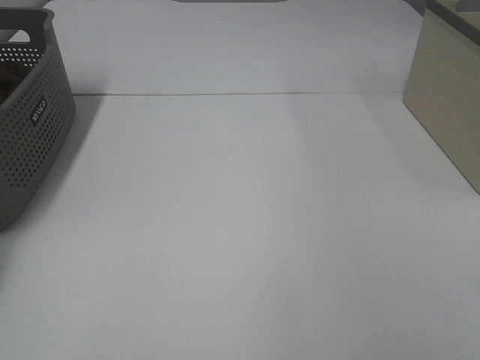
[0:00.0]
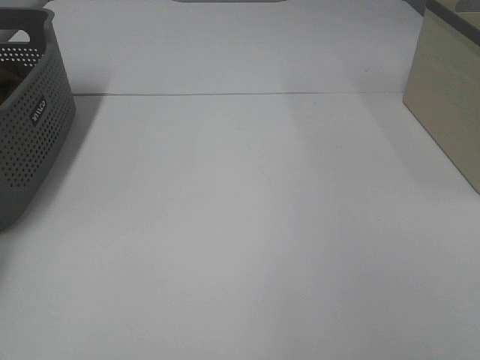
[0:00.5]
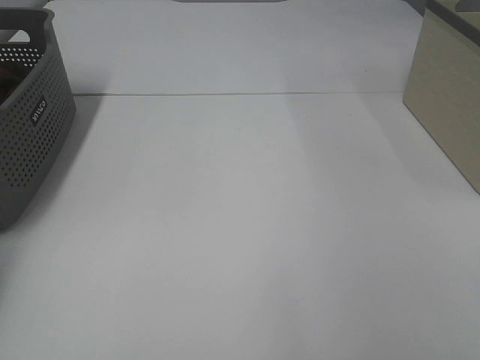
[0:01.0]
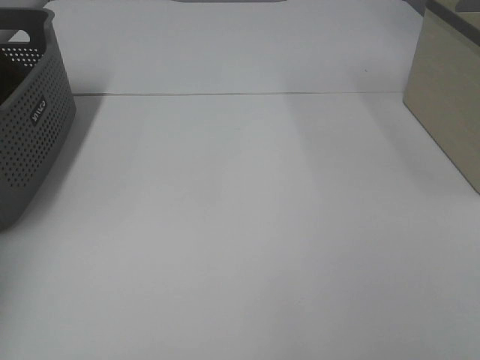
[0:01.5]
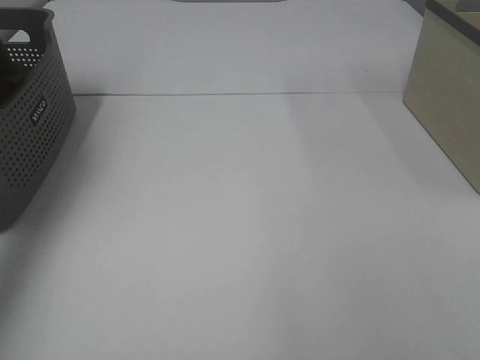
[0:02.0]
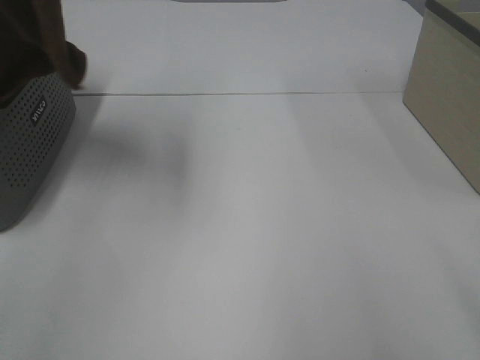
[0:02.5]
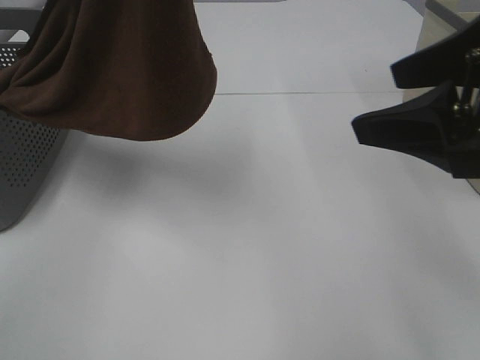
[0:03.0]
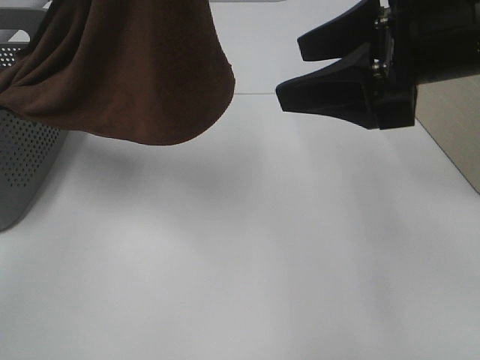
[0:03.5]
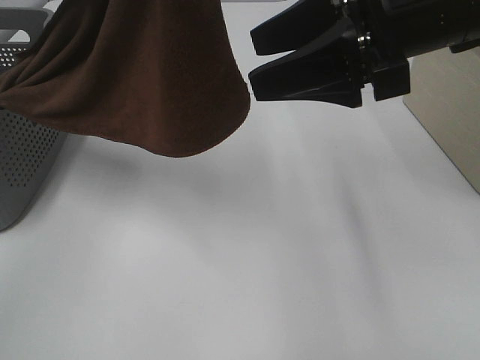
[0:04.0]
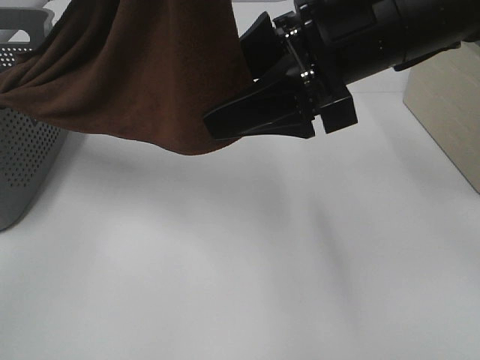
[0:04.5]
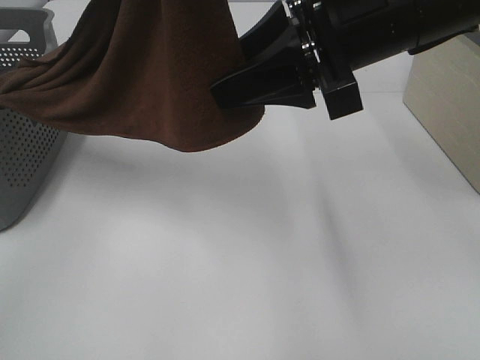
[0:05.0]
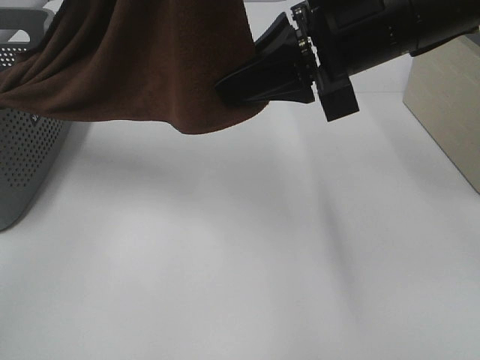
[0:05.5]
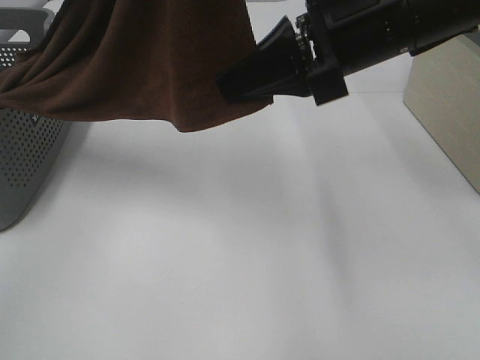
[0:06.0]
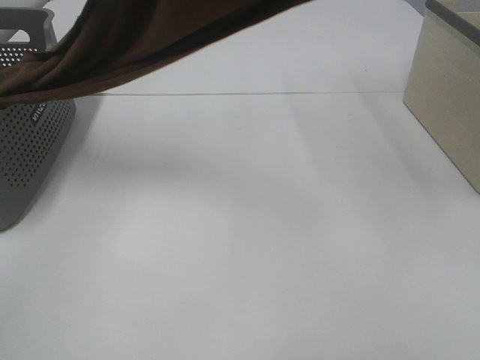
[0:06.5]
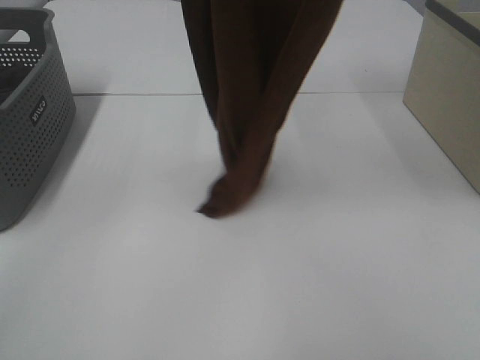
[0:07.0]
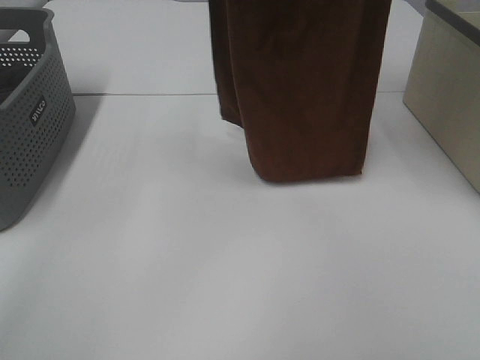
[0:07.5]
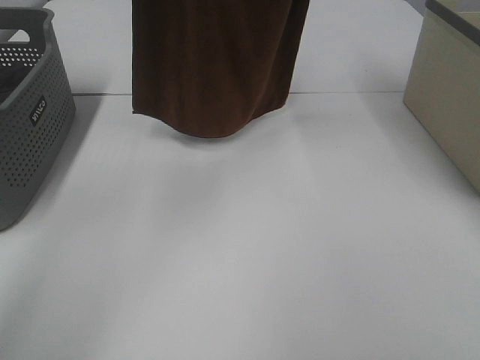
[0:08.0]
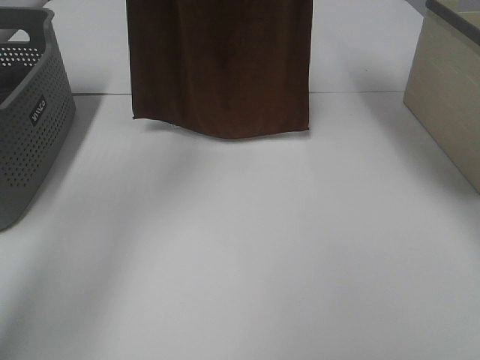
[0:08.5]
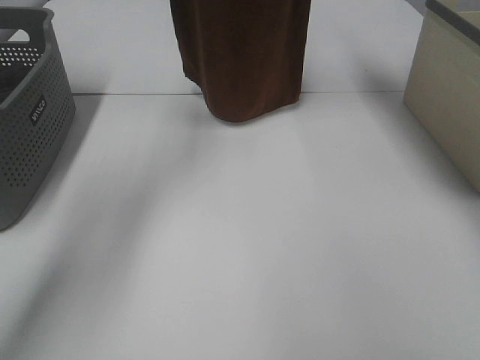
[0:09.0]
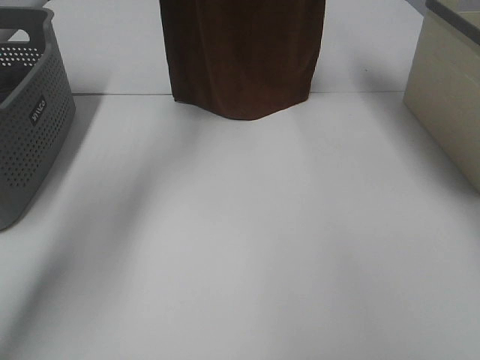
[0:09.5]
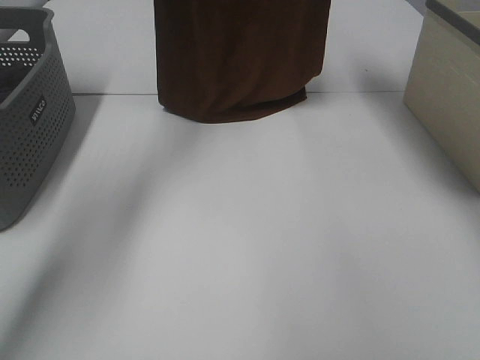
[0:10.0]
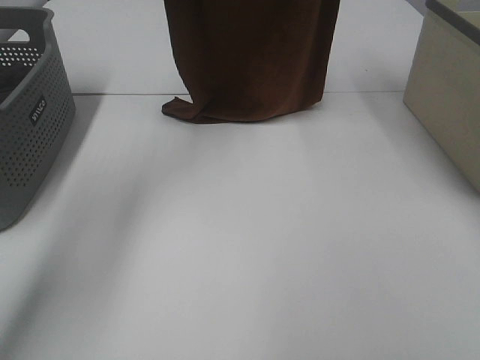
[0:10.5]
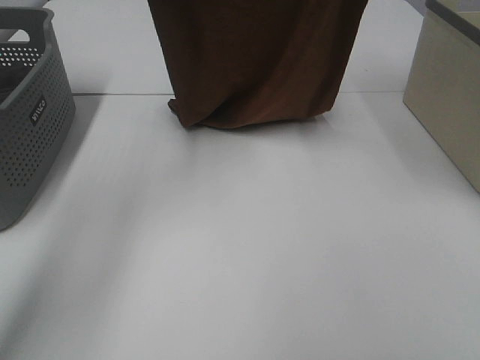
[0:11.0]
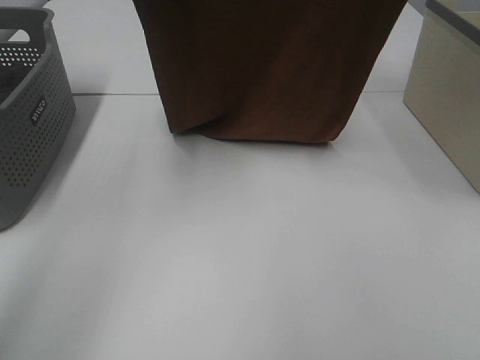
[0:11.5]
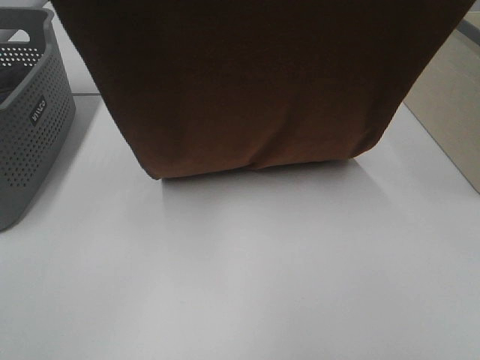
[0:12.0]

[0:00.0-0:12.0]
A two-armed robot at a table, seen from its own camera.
Task of the whole recording: Remove the towel and place it.
Step, 0:01.5 to 0:06.0: Right hand: grab a corner of the brown towel and straighten it.
Step, 0:06.5 to 0:11.0: Left hand: spread the brown towel flat on the table.
Step, 0:06.5 to 0:11.0: Right hand: spread the brown towel flat on the table.
0:00.0 to 0:02.0: The left gripper shifts some 30 cm upward, to the right and backward, and closes its fingers.
0:02.0 to 0:04.0: The right gripper heads forward and to the left, covering about 30 cm. The left gripper heads to the right and backward, covering approximately 25 cm.
0:04.0 to 0:06.0: The right gripper closes.
0:06.0 to 0:08.0: The right gripper shifts approximately 25 cm upward and forward; the left gripper is displaced forward by roughly 15 cm.
0:08.0 to 0:10.0: The grippers both shift forward and downward by roughly 15 cm.
0:10.0 to 0:12.0: The two grippers go about 25 cm backward.

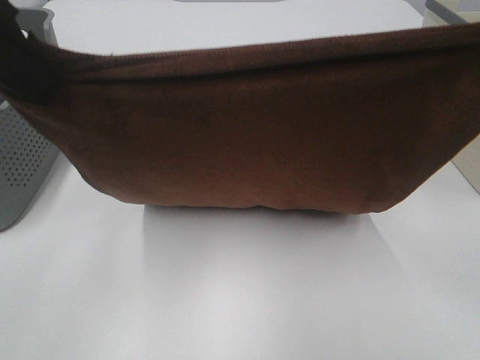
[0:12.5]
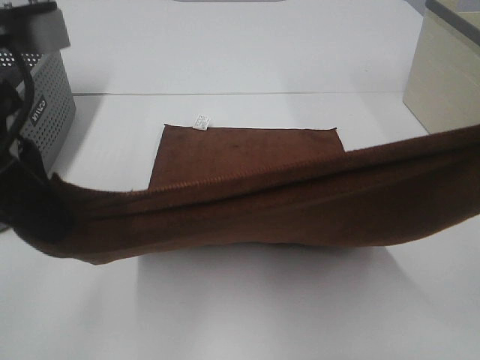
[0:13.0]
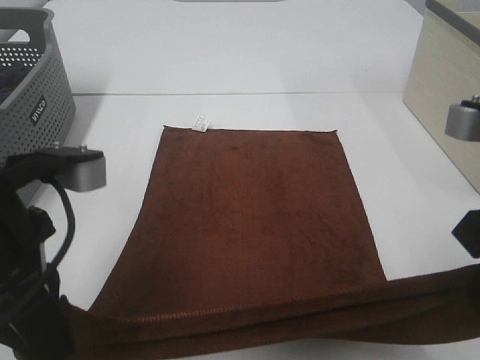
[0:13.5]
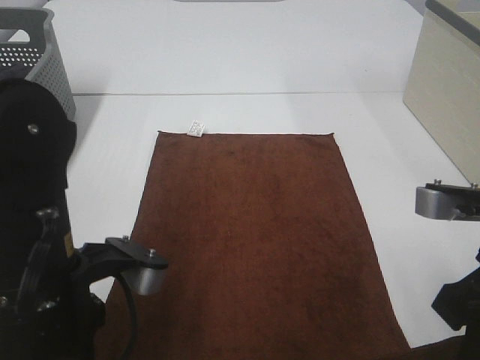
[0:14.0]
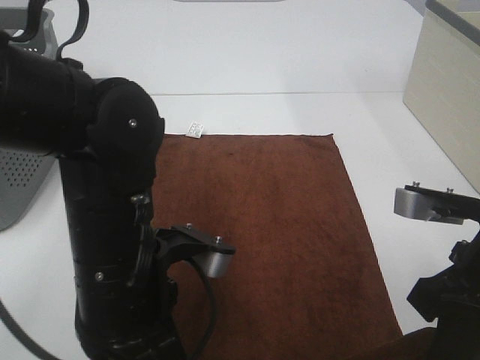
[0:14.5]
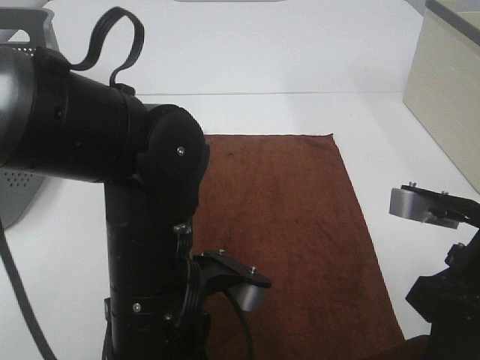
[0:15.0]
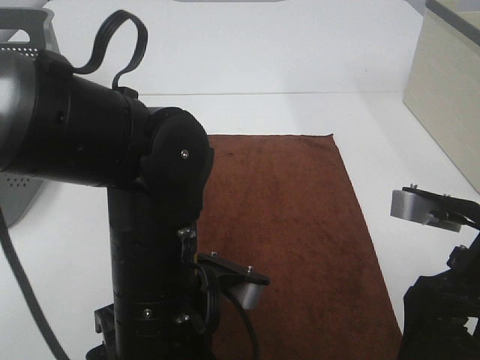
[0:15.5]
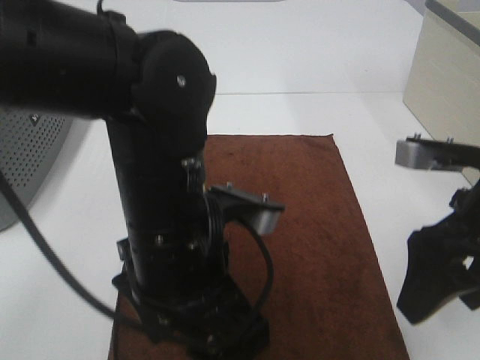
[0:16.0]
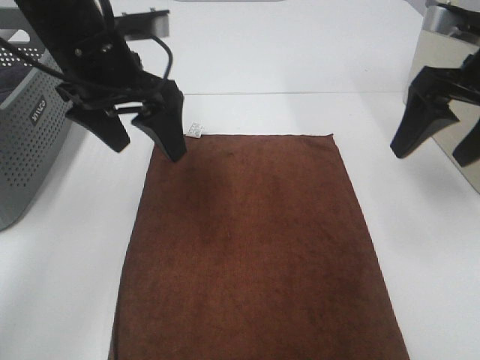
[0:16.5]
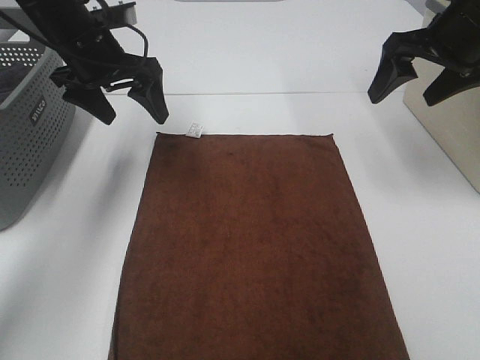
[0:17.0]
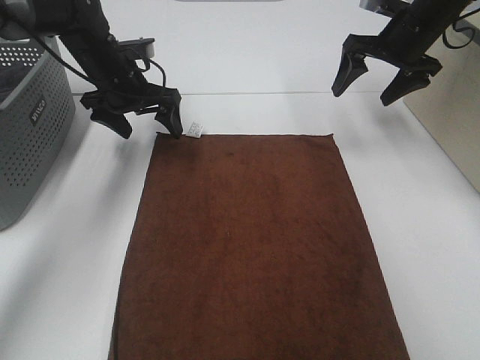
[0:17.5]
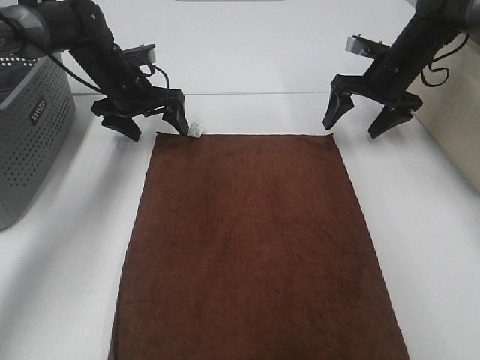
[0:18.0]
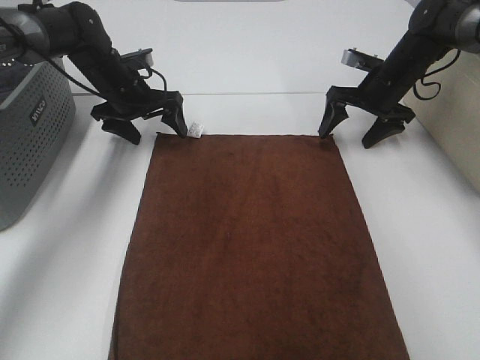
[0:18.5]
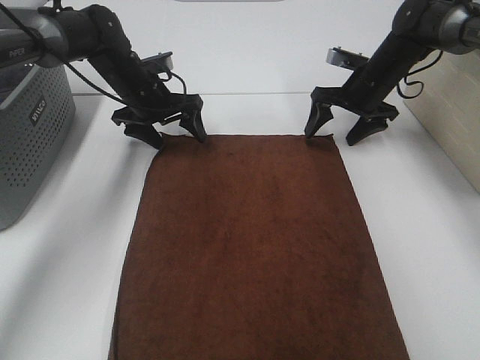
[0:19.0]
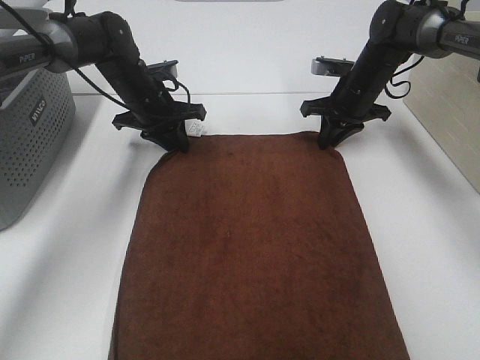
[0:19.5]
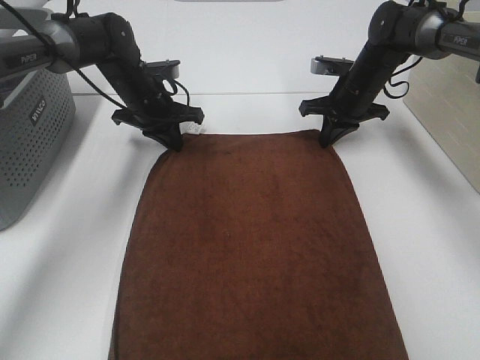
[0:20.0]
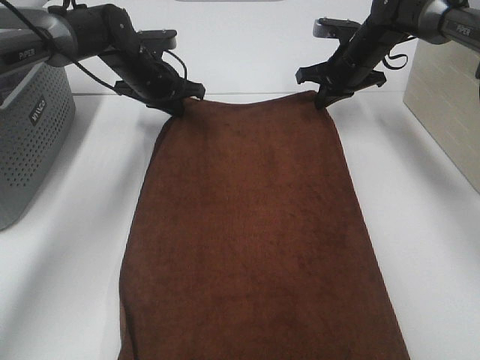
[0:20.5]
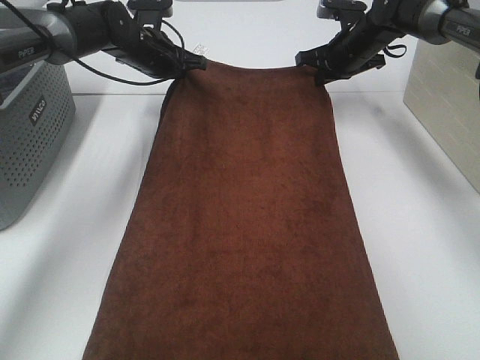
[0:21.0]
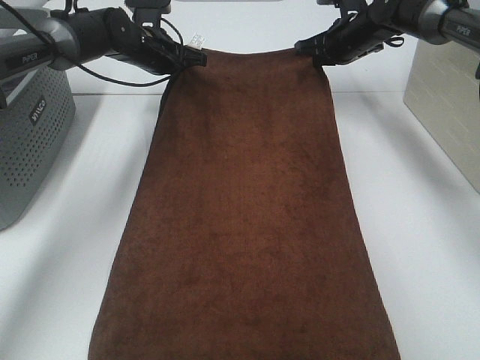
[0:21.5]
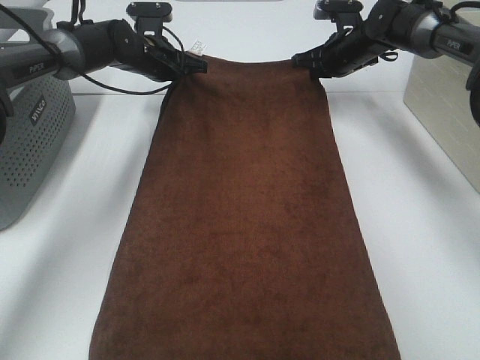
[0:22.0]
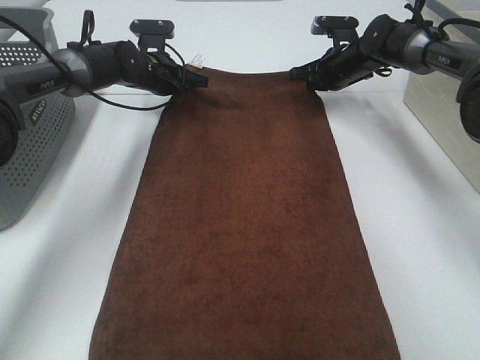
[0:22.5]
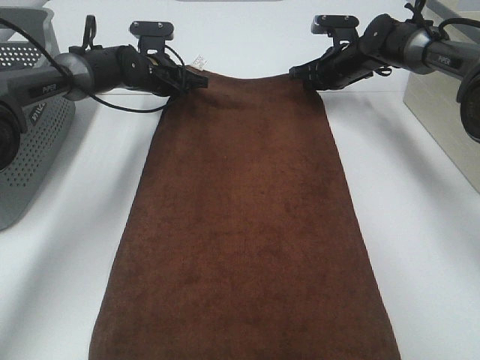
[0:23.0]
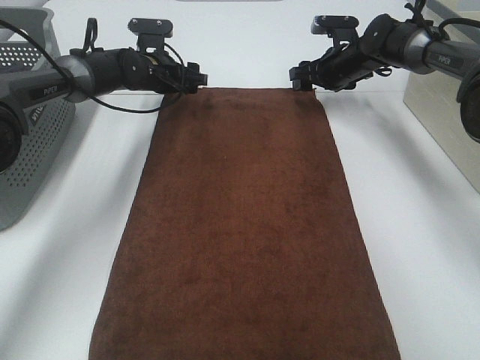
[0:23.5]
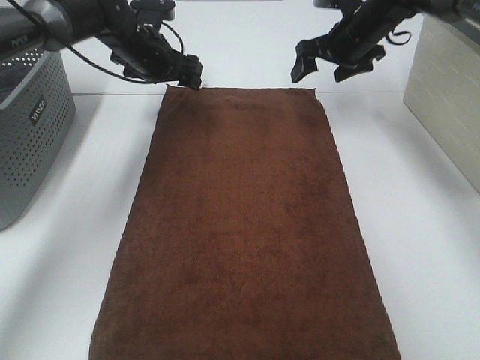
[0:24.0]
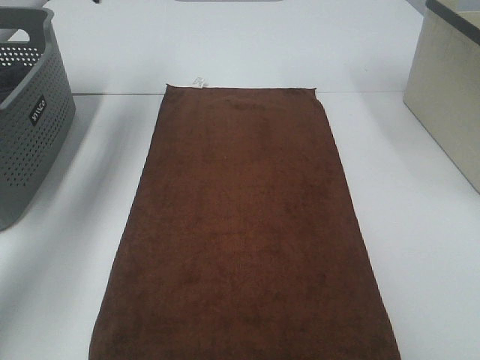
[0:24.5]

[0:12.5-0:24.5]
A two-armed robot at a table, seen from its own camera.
Task of the whole recording: Remove the towel and place it.
Step, 0:12.5 to 0:18.0: Left hand:adjust the brown towel.
Step, 0:12.5 to 0:18.0: Right hand:adjust the brown towel.
0:12.5 to 0:14.5: The left gripper goes roughly 25 cm downward and to the right. Meanwhile the right gripper goes roughly 20 cm downward.
0:14.5 to 0:16.5: Both grippers move forward and upward, approximately 20 cm. The left gripper opens up. The right gripper opens up.
0:16.5 to 0:18.5: The two grippers go approximately 25 cm forward and downward.
0:18.5 to 0:20.5: The right gripper moves approximately 5 cm, and closes its fingers; the left gripper closes its fingers.
0:22.5 to 0:24.5: The left gripper moves upward and to the left, roughly 25 cm, and opens its fingers, while the right gripper is displaced upward and backward by about 30 cm, and opens up.

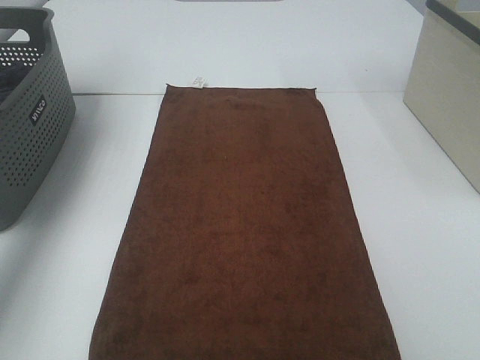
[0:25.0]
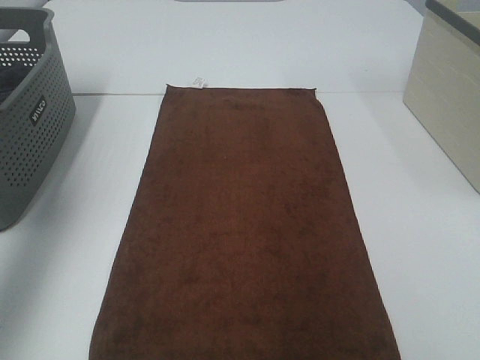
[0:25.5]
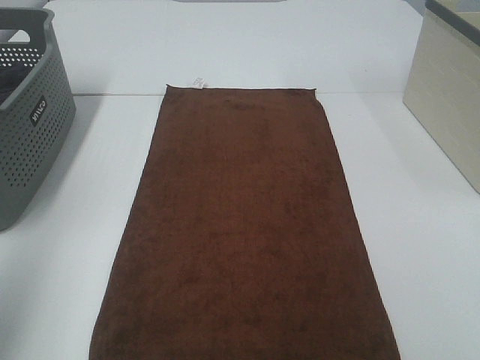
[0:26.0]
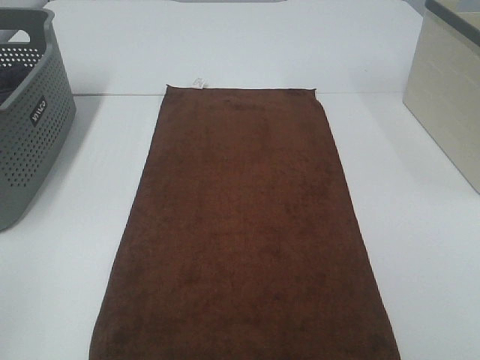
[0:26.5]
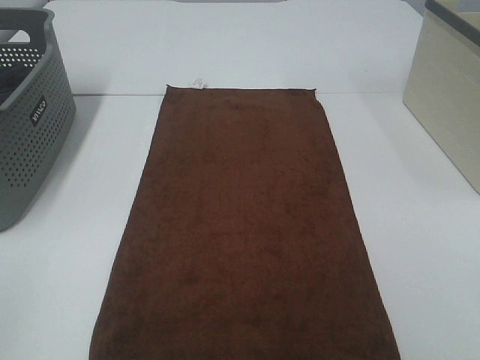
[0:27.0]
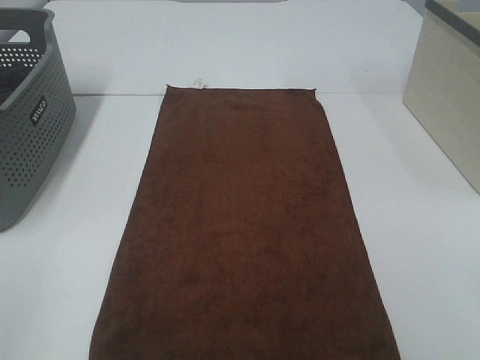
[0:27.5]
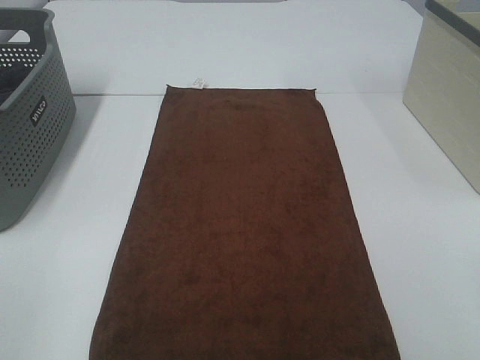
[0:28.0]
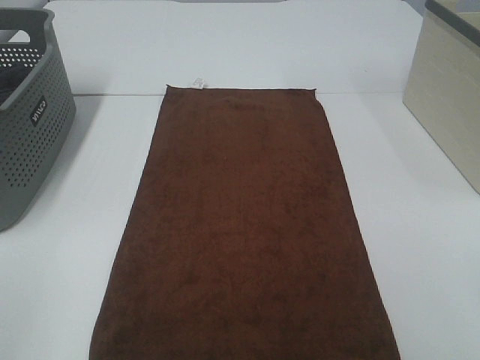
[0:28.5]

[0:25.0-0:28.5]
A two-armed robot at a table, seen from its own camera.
Task of the whole recording: Remove the towel and place it.
0:25.0 to 0:27.0: The left gripper travels backward by some 50 cm.
